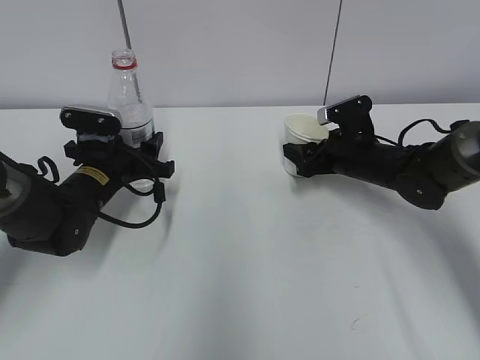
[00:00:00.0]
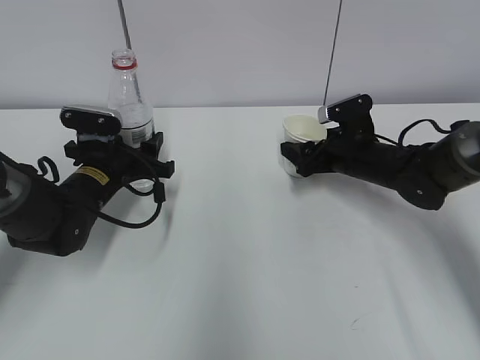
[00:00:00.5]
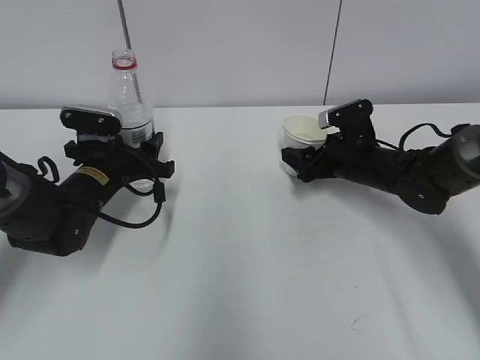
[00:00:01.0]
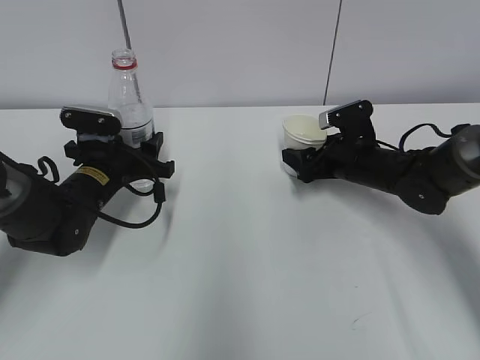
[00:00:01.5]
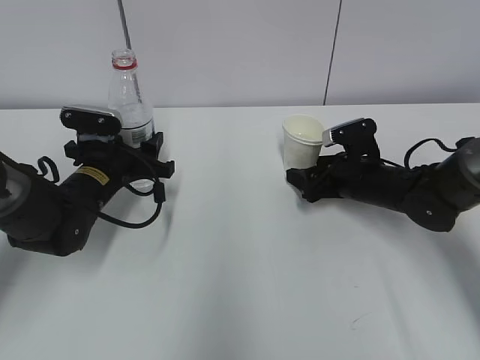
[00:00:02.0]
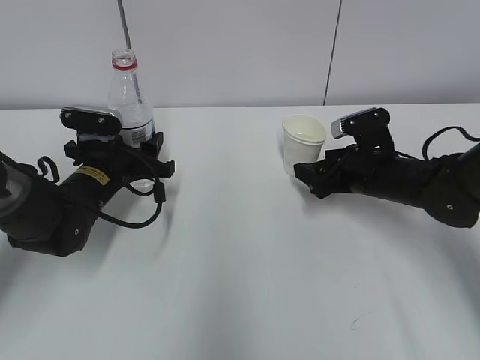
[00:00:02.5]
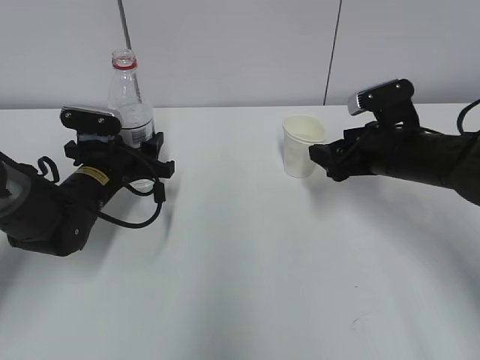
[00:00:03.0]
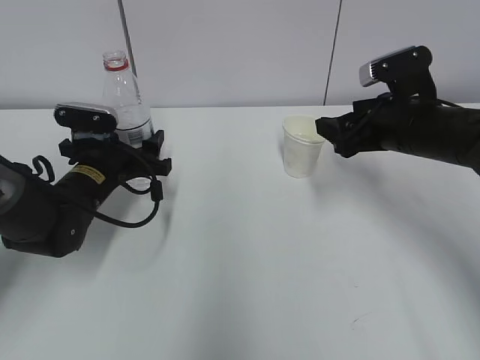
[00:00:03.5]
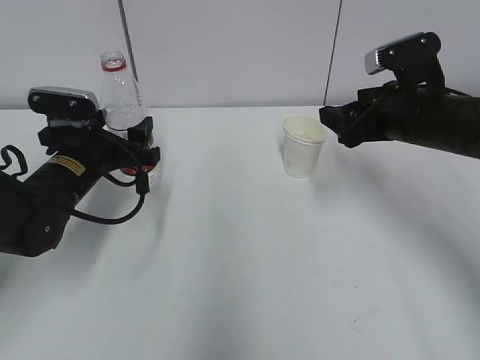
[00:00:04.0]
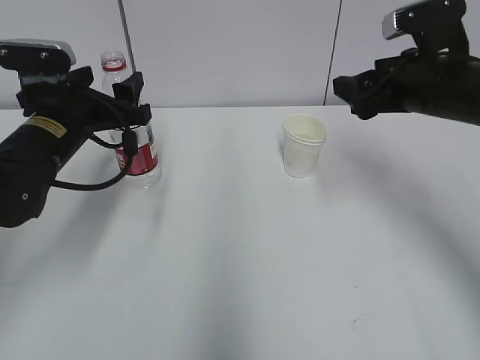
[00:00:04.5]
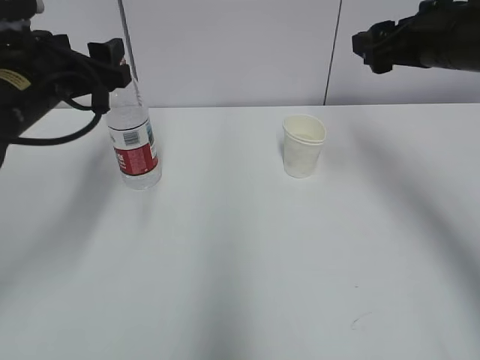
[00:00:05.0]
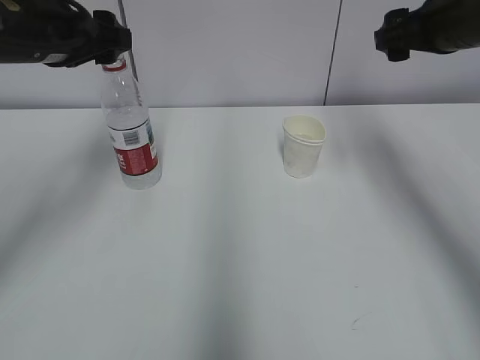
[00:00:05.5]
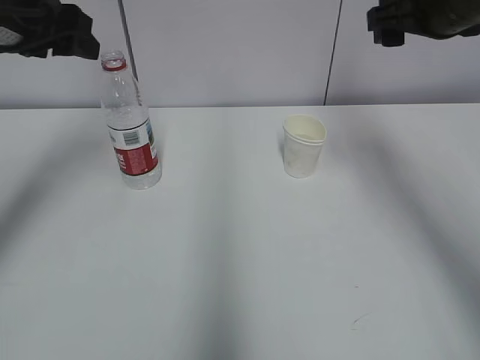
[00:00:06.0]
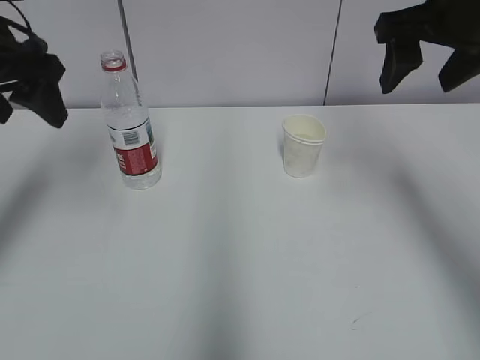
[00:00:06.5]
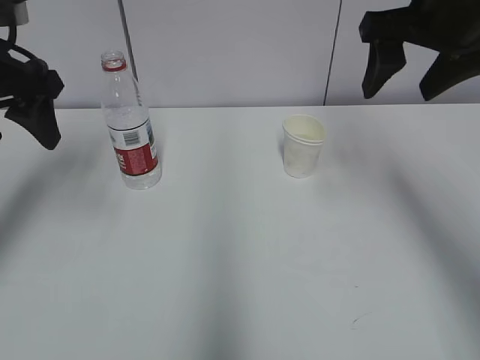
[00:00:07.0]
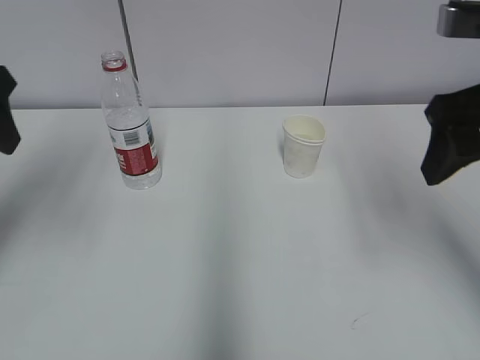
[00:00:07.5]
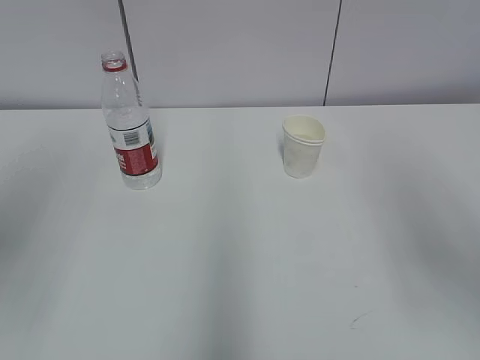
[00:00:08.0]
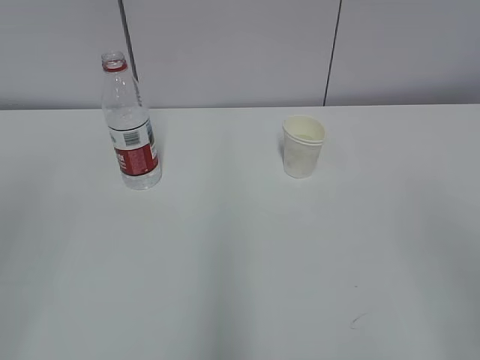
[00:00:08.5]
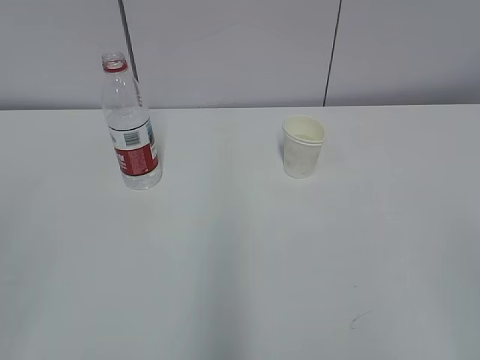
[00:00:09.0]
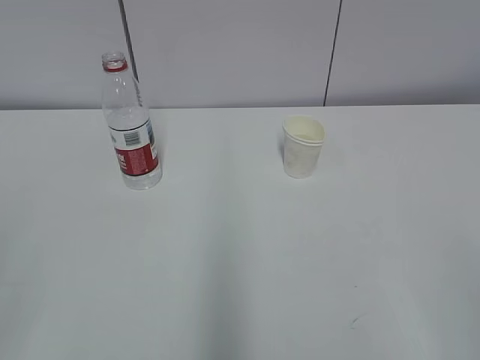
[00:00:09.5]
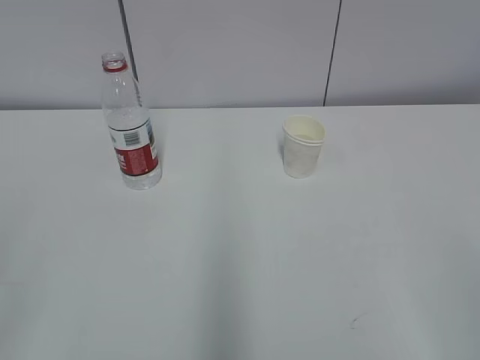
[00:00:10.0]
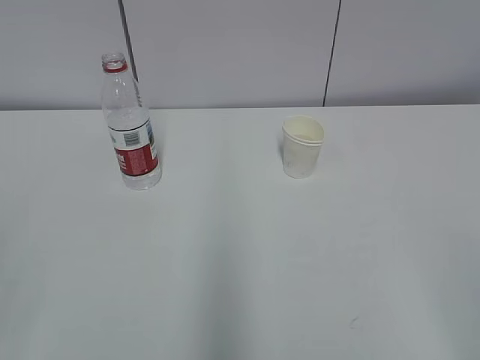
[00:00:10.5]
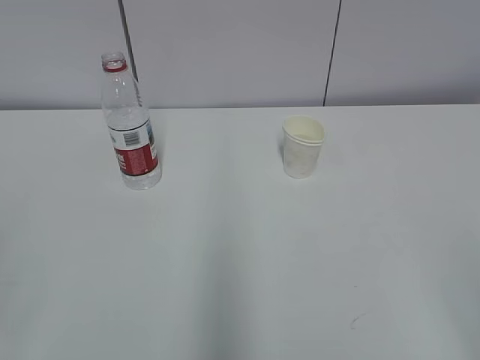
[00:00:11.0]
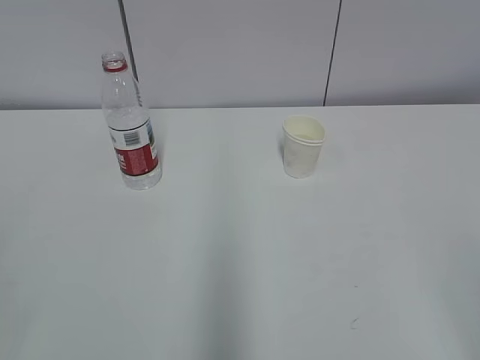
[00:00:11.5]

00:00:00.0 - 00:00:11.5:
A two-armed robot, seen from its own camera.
00:00:00.0 - 00:00:02.0: The right gripper opens.
00:00:02.0 - 00:00:04.0: The right gripper is displaced upward by roughly 15 cm.
00:00:04.0 - 00:00:06.0: The right gripper moves upward, roughly 15 cm. The left gripper heads upward, covering about 20 cm.
00:00:06.0 - 00:00:07.5: Both grippers travel together backward, some 10 cm.
00:00:07.5 - 00:00:09.5: The grippers both shift backward by about 30 cm.
